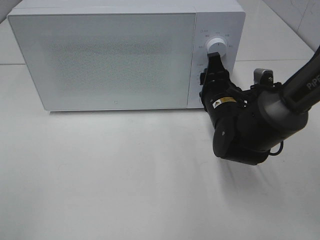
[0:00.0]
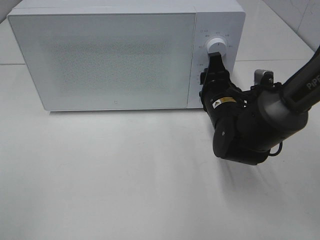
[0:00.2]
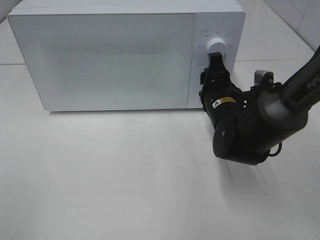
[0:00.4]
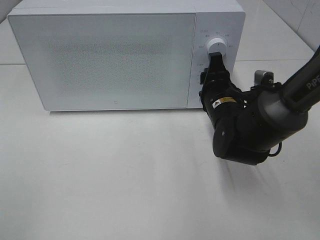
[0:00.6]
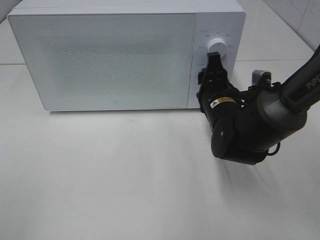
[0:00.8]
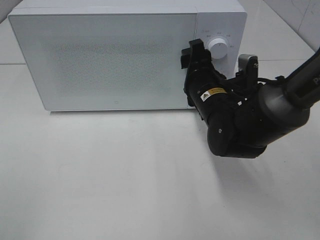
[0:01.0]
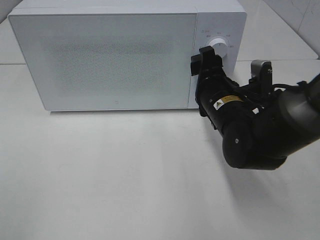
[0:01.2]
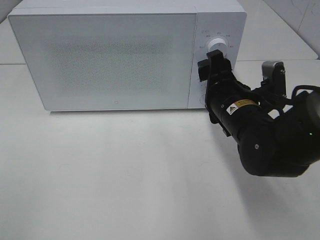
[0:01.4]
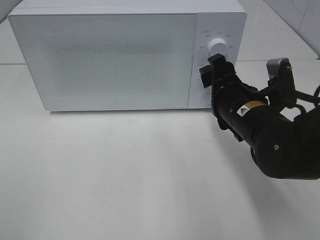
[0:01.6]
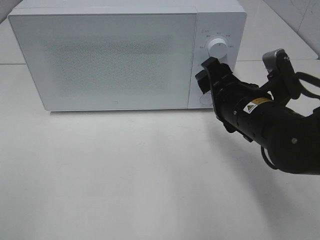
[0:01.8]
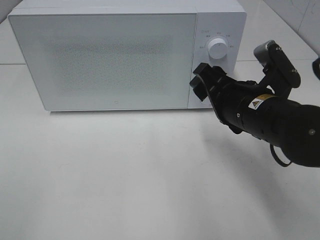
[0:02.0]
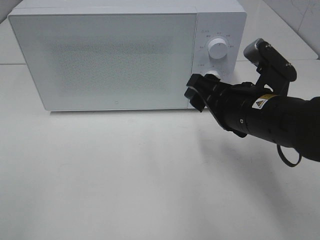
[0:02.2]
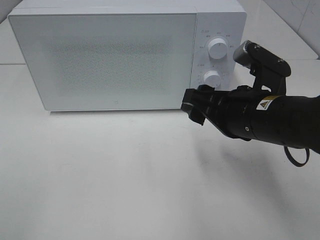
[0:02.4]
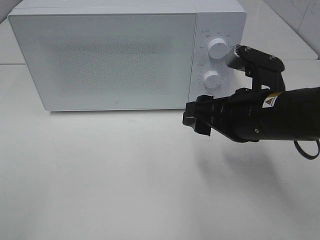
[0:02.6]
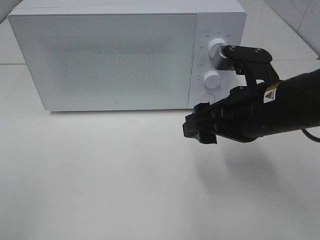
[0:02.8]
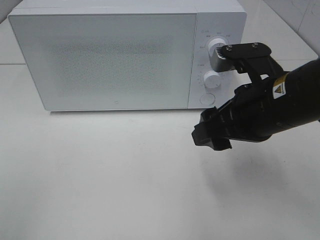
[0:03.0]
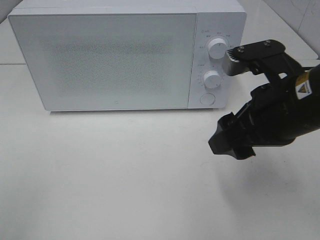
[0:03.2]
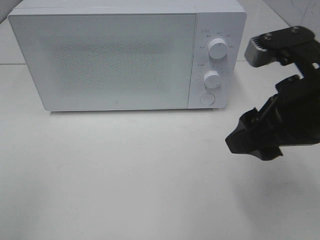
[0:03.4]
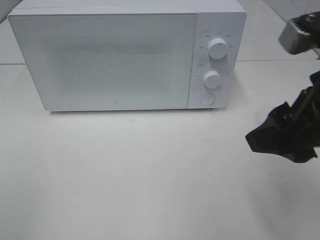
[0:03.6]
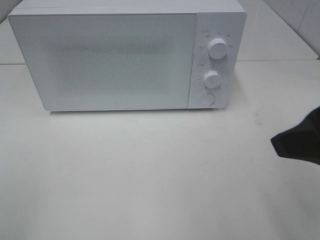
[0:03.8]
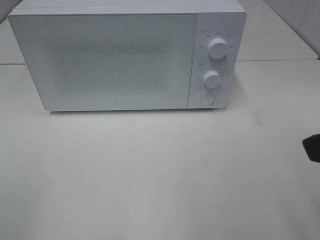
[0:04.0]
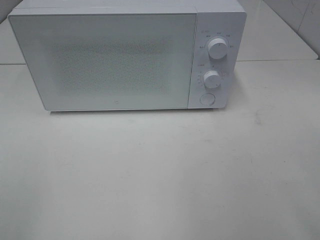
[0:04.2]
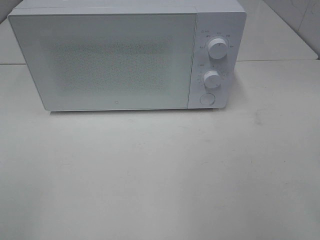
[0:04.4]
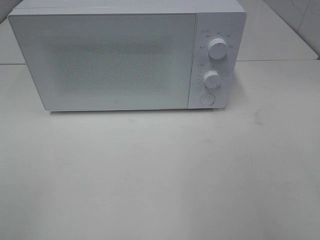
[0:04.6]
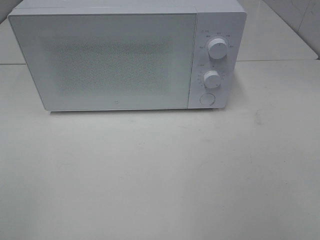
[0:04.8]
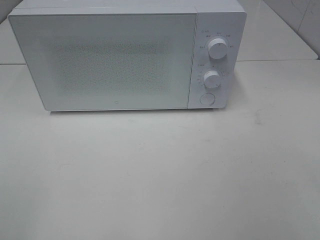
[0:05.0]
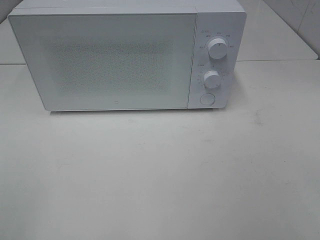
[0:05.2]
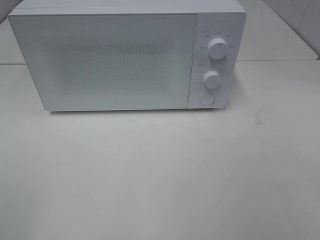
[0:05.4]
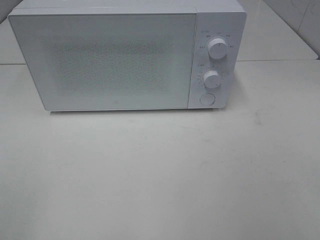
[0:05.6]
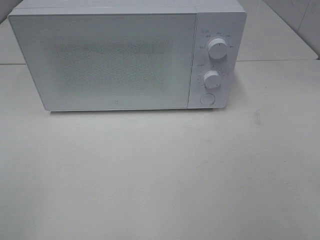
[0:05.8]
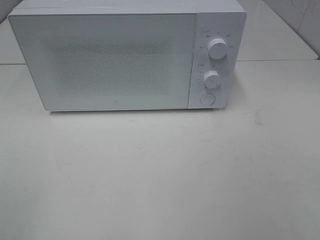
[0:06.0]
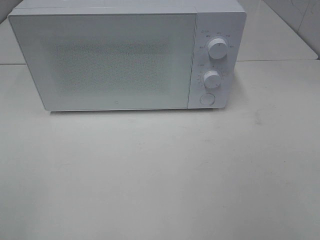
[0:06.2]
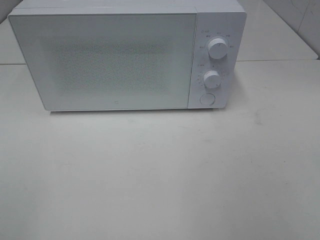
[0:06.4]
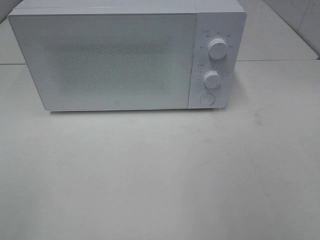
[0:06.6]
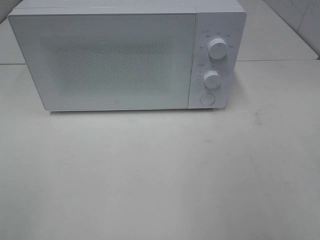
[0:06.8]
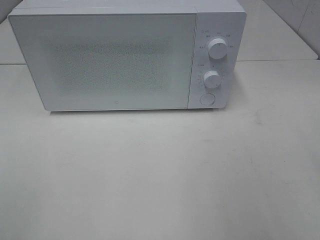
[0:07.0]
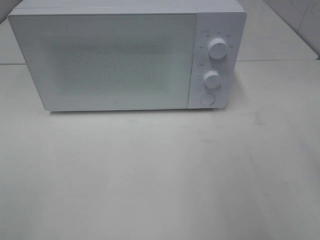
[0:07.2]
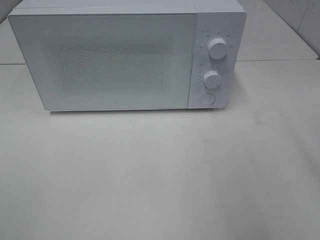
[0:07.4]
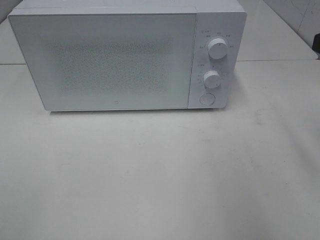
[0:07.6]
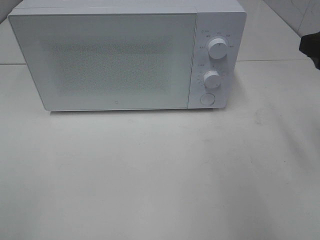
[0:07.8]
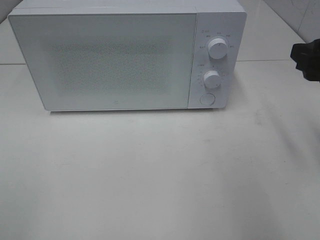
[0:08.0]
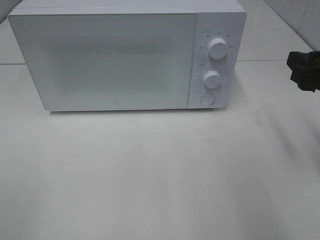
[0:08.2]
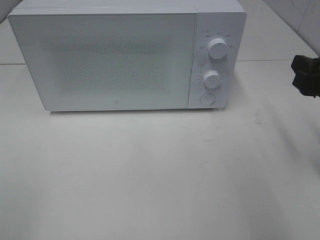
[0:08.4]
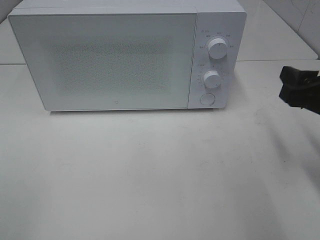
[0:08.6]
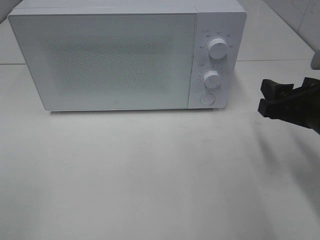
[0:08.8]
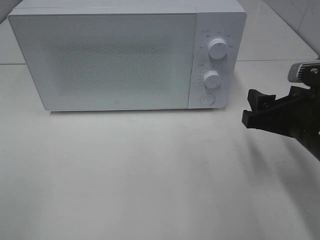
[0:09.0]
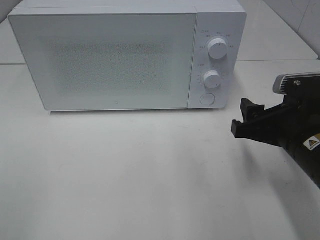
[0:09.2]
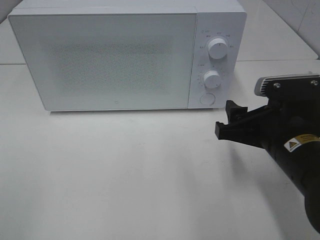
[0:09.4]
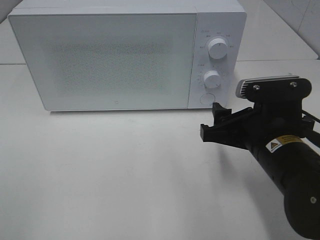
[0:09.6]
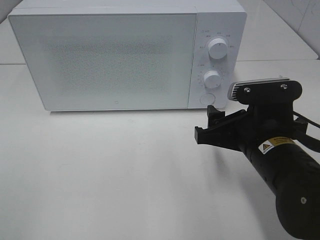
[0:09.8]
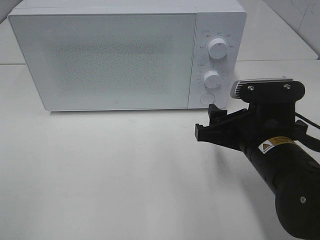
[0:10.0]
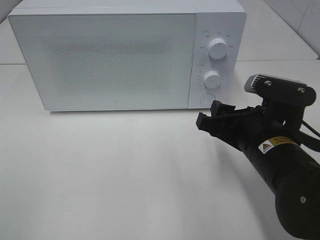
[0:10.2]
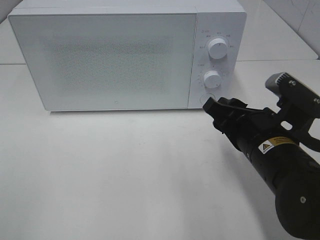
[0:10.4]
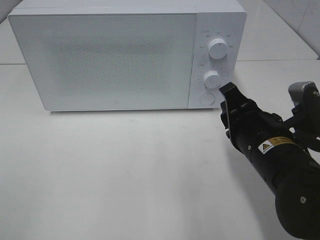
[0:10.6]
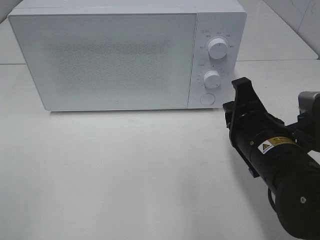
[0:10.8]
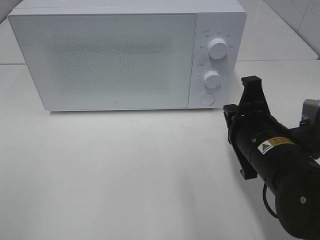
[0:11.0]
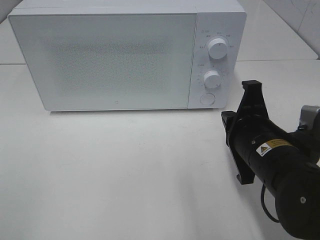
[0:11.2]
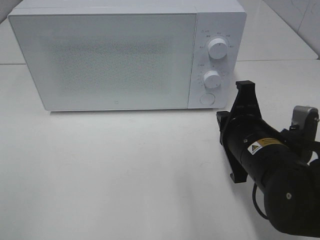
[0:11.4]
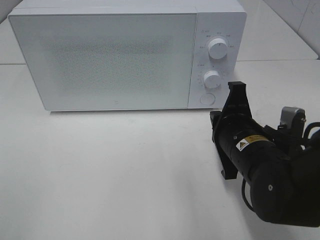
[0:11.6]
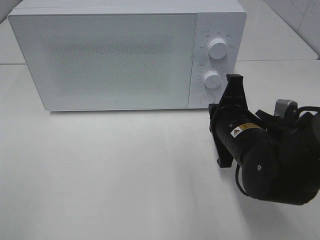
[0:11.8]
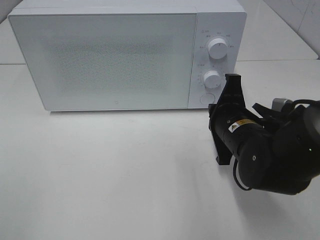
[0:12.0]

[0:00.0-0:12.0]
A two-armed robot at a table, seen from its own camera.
Task of the whole recording: Heat the burger.
0:00.0 to 0:01.6: The right gripper travels backward by about 5 cm.
0:01.6 to 0:03.0: The right gripper is displaced upward by approximately 5 cm.
0:03.0 to 0:04.4: The right gripper travels backward, to the right and upward by some 20 cm.
0:07.6 to 0:09.0: The right gripper is displaced downward and to the left by some 15 cm.
0:09.0 to 0:10.4: The right gripper goes about 5 cm to the left.
0:10.4 to 0:12.0: The right gripper shifts roughly 5 cm forward, and closes its fingers.

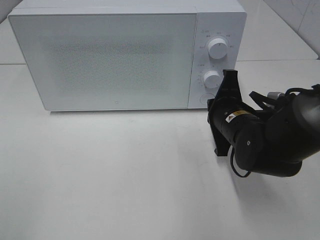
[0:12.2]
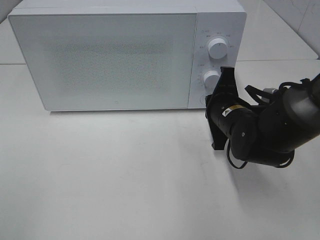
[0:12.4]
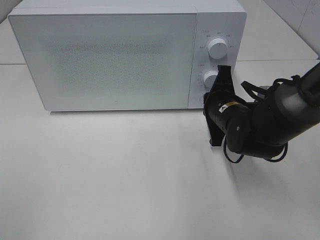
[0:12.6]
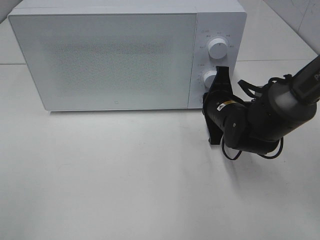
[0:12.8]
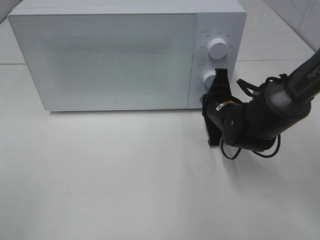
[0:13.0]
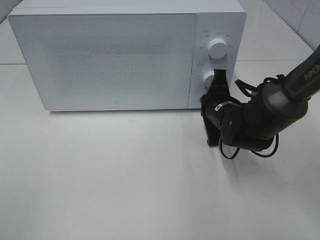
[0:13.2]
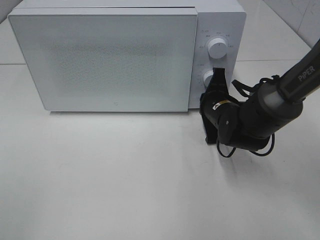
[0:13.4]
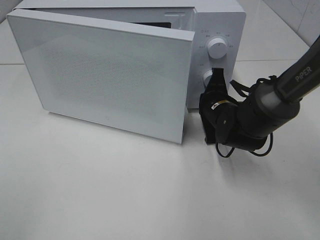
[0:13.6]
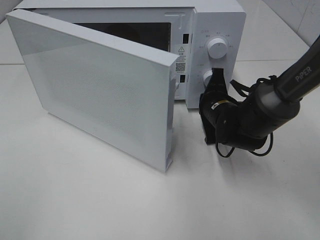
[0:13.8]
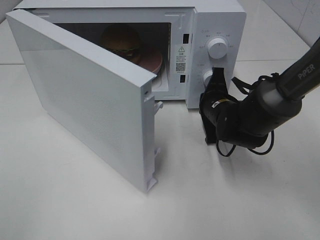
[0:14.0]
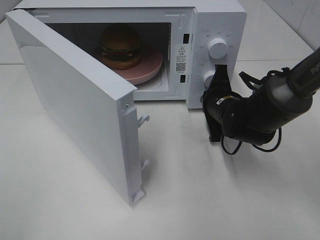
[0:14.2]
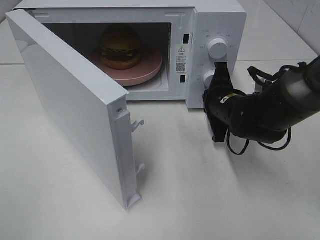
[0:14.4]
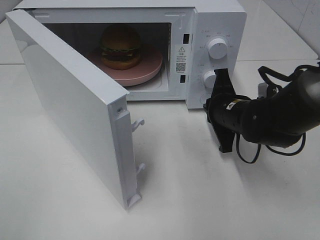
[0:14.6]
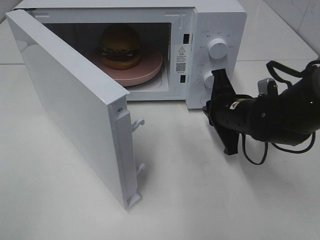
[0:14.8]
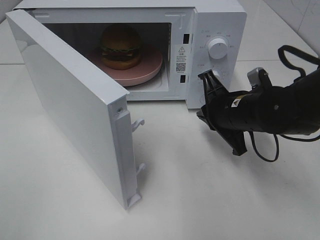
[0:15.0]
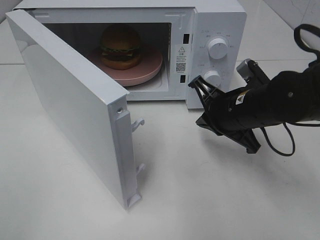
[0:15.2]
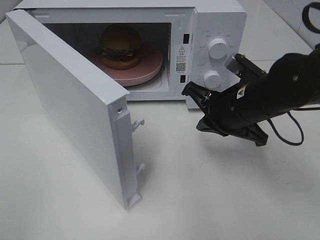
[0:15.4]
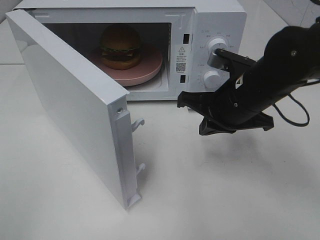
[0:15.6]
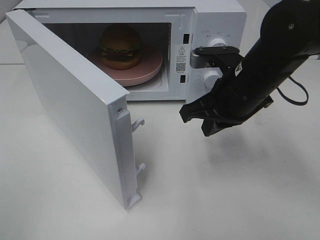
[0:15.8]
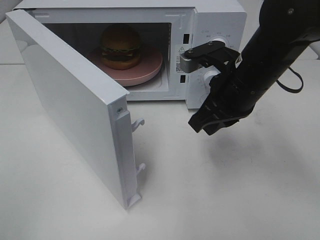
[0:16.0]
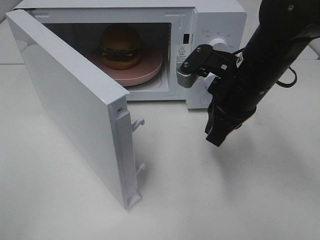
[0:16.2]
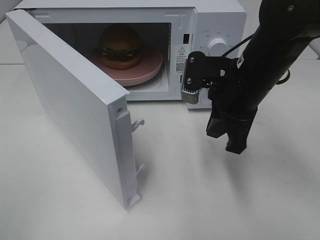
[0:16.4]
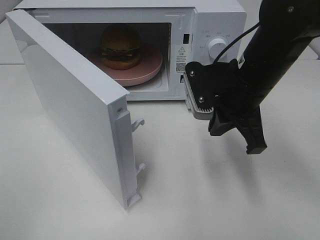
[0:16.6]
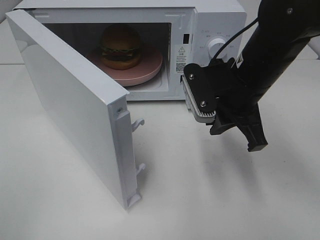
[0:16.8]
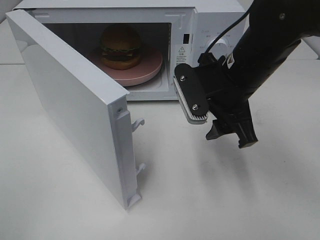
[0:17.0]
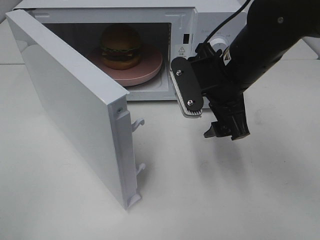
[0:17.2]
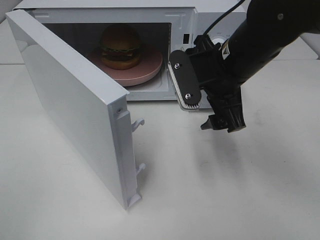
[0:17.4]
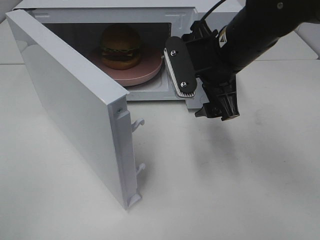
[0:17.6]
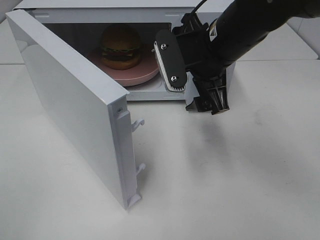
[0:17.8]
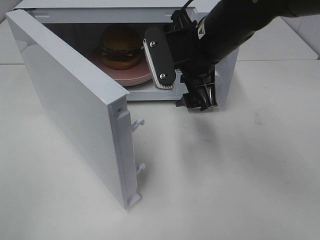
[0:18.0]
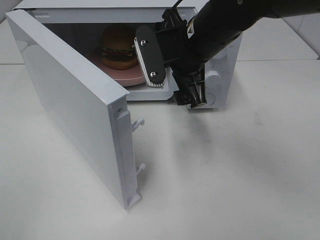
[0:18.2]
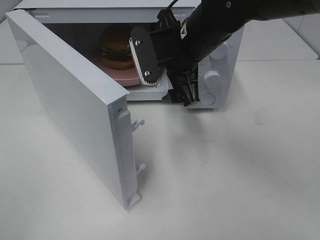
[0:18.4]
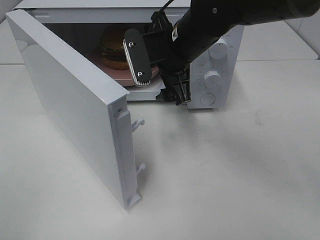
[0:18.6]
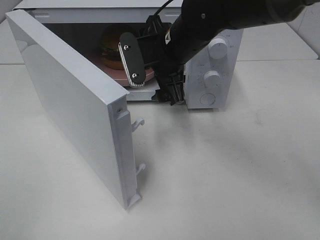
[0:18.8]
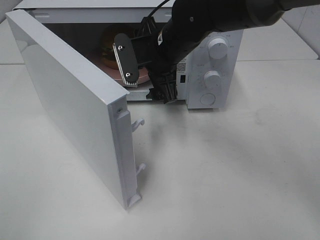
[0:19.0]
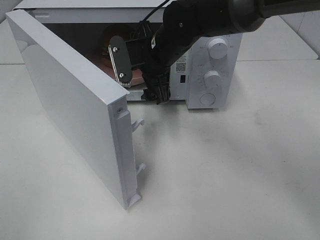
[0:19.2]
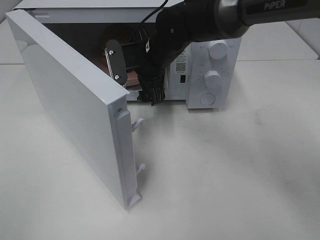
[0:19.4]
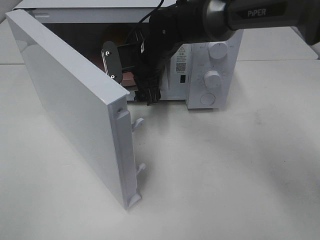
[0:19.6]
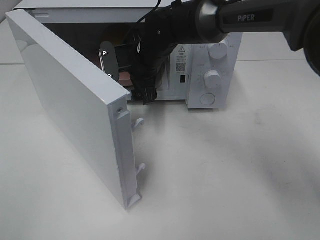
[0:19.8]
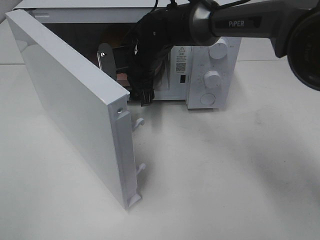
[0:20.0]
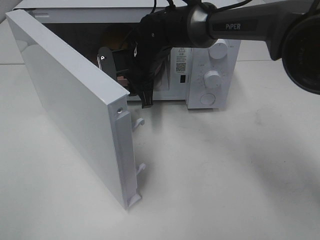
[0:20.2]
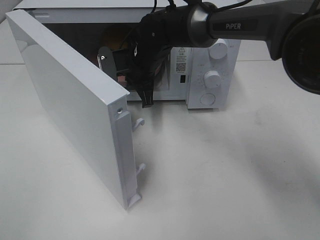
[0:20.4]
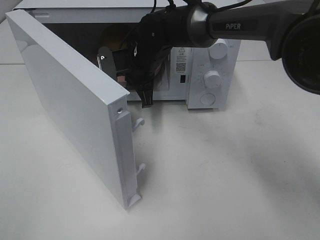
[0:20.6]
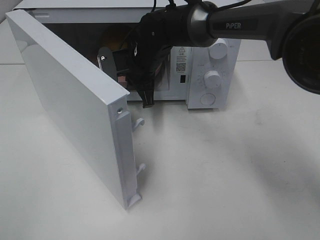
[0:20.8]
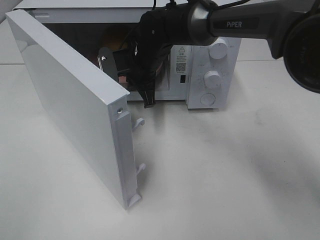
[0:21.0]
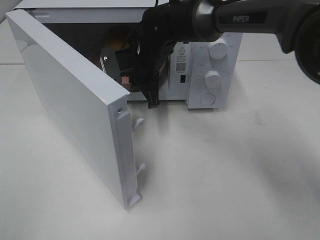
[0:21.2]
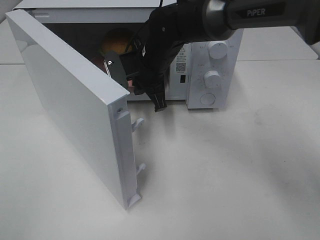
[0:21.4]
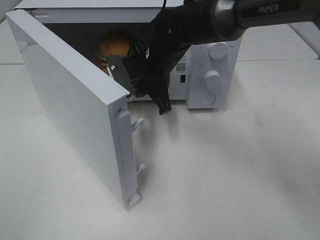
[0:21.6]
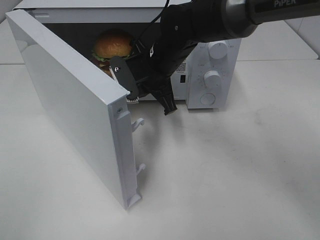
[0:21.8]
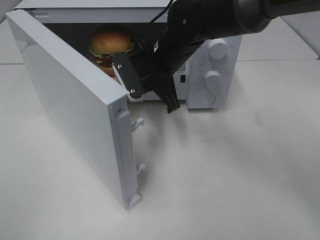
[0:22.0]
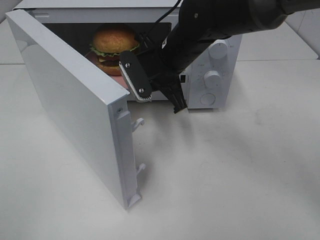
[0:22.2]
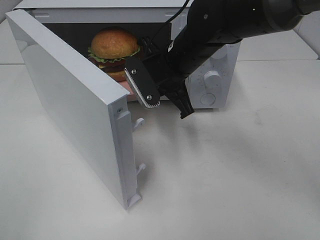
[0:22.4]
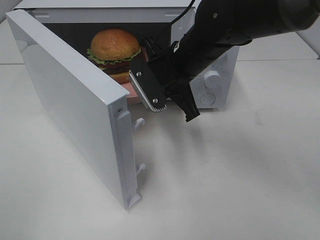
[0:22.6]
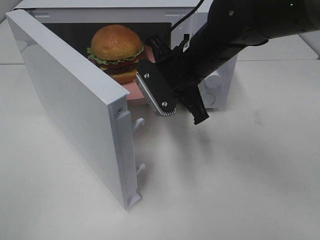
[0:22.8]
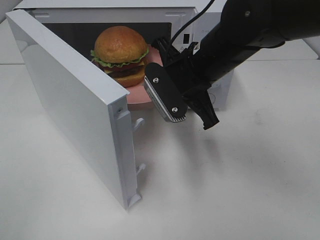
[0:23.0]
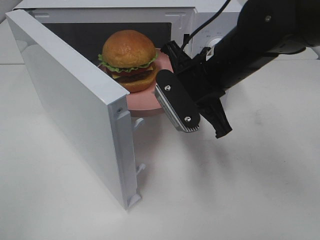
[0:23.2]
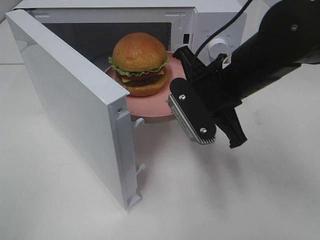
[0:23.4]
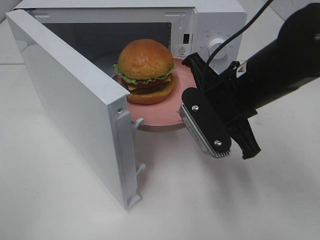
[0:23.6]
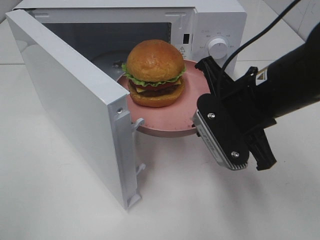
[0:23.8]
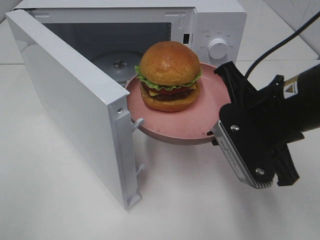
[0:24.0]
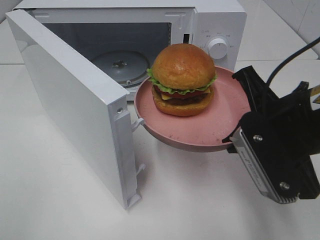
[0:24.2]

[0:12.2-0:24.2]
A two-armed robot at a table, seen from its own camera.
Task of the whole recording: Heat the burger.
Step, 0:12.2 to 0:14.8: Right hand: press the switch.
Step, 0:15.0 to 0:21.0: Right hand: grab the plate with the hamburger.
0:12.2 to 0:13.8: The right gripper shifts roughly 5 cm forward.
0:13.8 to 0:15.2: The right gripper moves backward and upward, roughly 10 cm.
0:15.2 to 0:16.6: The right gripper travels upward by about 5 cm.
0:16.6 to 0:18.2: The right gripper moves to the left, some 5 cm, and opens up.
0:18.2 to 0:19.8: The right gripper is displaced forward, downward and to the left by roughly 15 cm.
0:19.8 to 0:21.2: The right gripper closes its fingers.
0:21.2 to 0:22.6: The right gripper shifts approximately 10 cm backward and to the right.
0:22.6 to 0:24.2: The right gripper goes some 20 cm backward and to the right.
